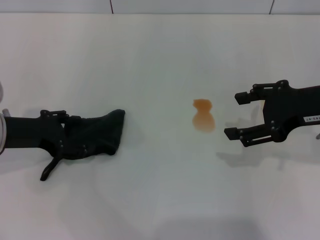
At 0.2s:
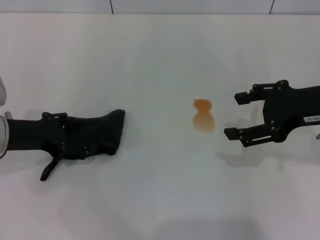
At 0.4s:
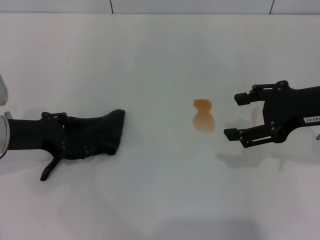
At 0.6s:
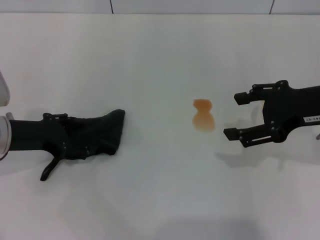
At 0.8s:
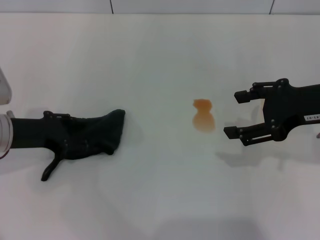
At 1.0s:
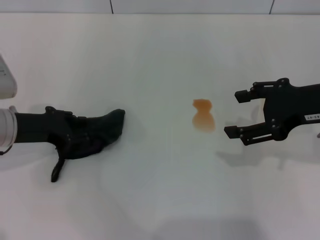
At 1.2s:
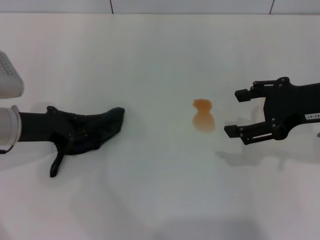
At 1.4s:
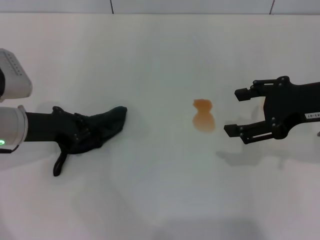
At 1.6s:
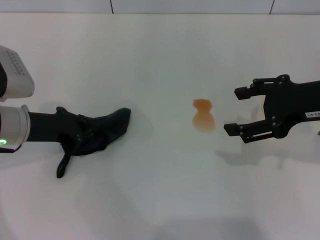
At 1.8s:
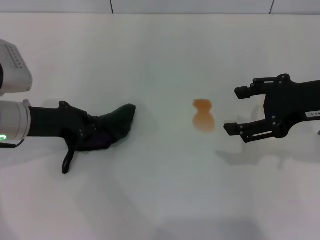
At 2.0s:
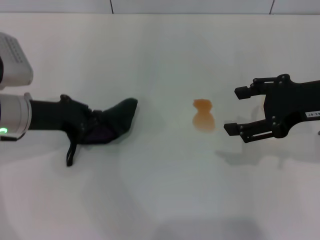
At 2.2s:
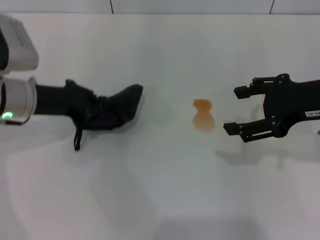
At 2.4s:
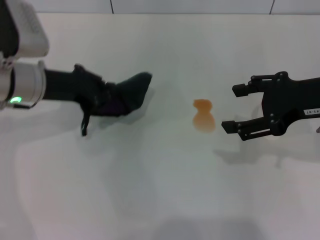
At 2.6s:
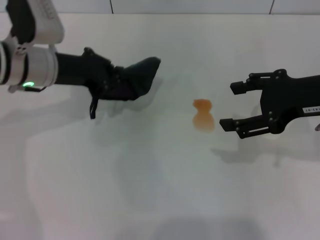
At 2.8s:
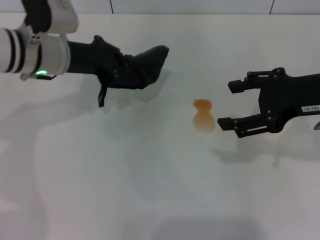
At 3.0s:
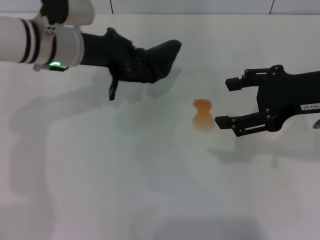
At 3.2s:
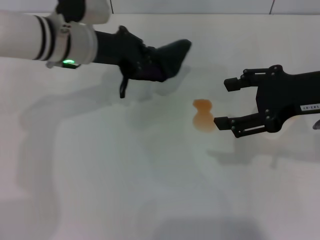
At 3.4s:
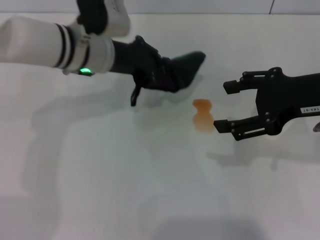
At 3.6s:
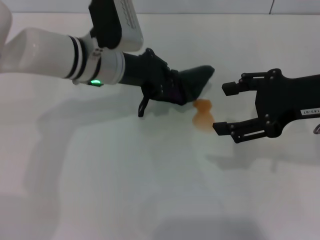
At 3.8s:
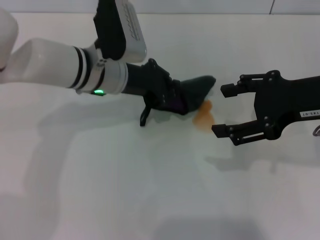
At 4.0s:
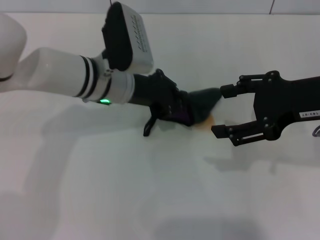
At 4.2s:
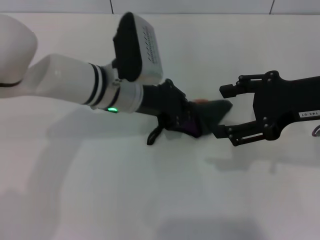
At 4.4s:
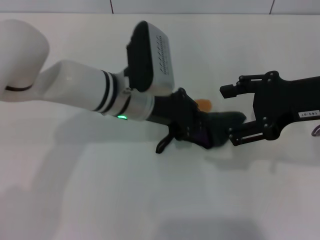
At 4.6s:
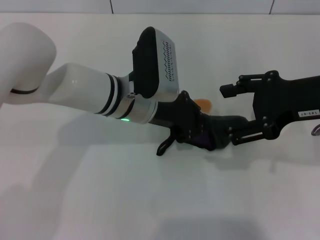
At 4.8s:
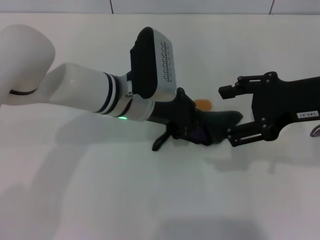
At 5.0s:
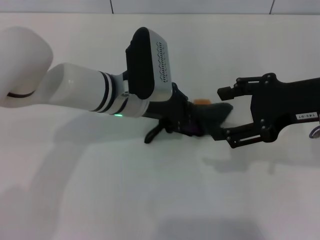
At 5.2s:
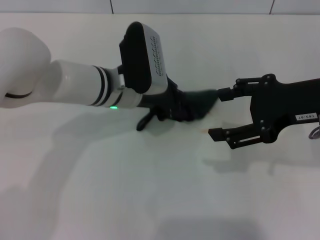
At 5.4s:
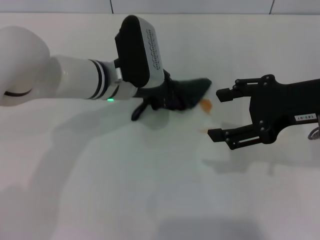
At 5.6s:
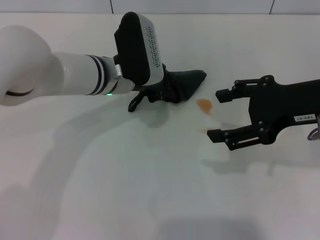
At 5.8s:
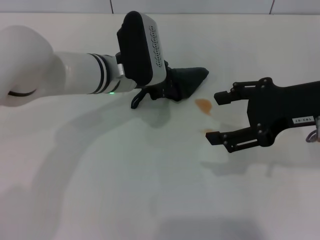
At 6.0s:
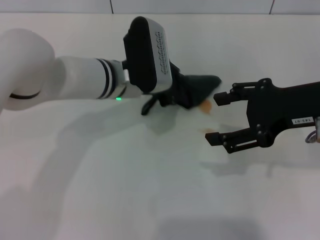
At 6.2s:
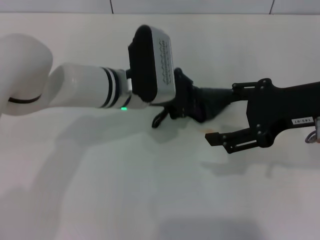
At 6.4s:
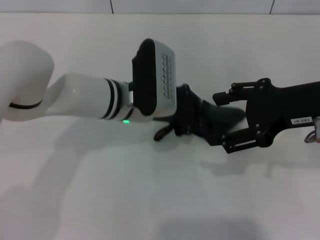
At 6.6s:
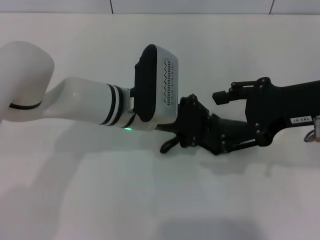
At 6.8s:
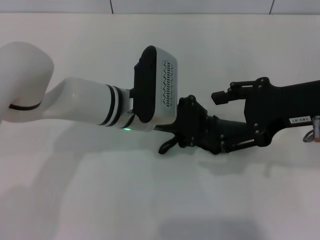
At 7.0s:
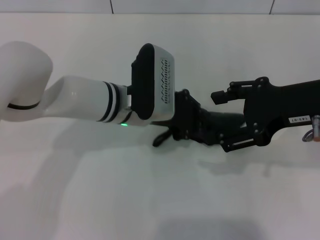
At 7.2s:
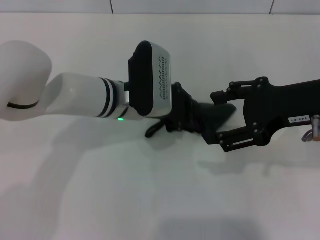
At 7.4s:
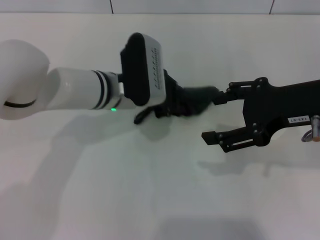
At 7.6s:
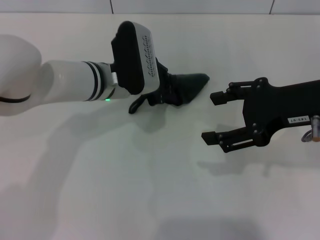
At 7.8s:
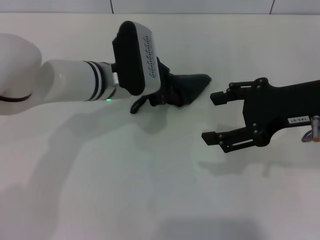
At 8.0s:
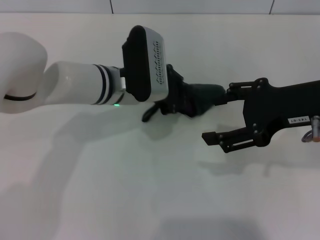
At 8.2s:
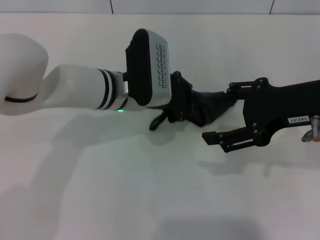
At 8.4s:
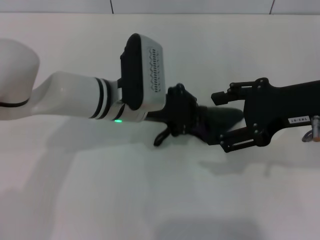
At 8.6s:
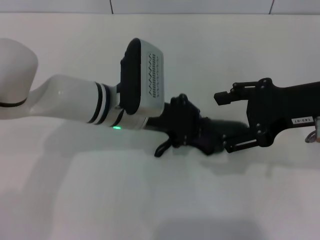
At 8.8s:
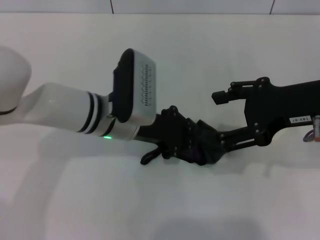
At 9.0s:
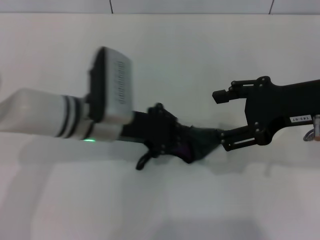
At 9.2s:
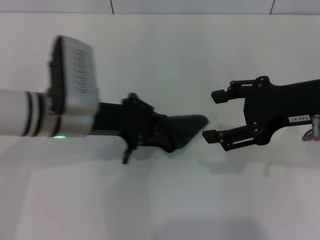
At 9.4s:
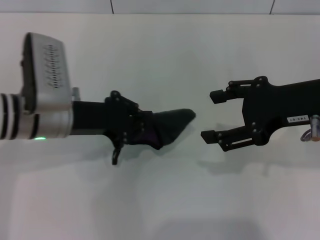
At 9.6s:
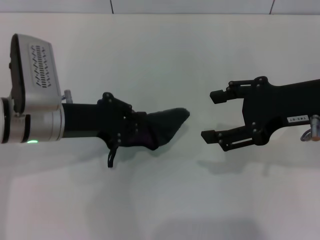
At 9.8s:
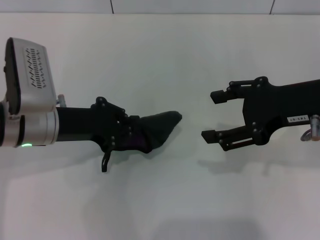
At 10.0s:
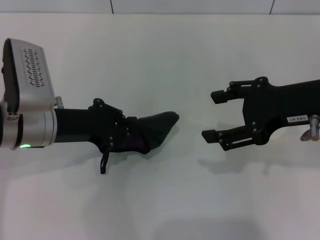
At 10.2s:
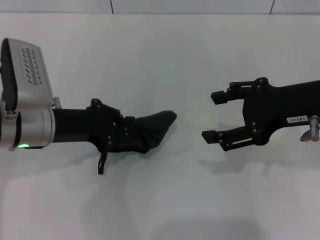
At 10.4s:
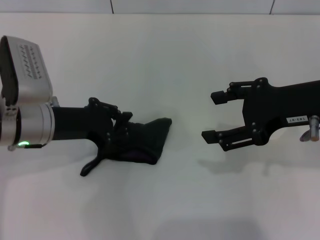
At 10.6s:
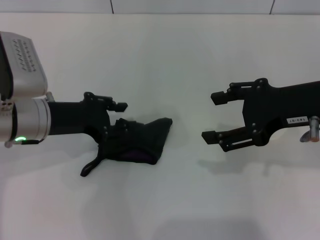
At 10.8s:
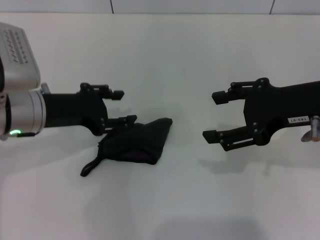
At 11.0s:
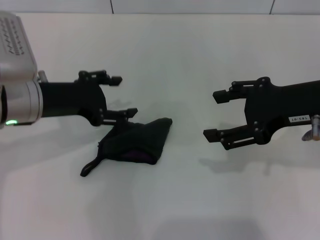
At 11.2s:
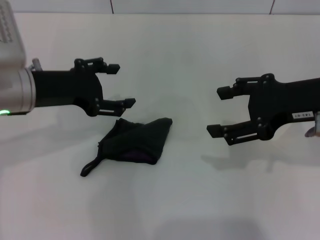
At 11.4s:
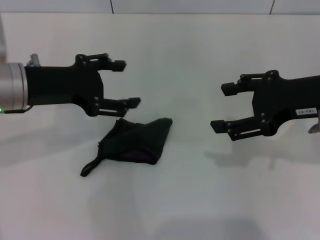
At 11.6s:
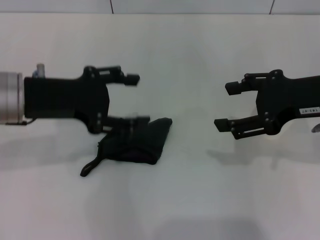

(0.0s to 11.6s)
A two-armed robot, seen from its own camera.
Step, 1.4s - 10.0s: Wipe the stains off the table with the left gripper.
Step, 10.2s - 10.8s: Place the rag on the table with the left gripper.
0.0s - 1.4s: The left gripper closes.
1.4s - 2.8s: The left gripper moves to the right, forward and upward, about 10 cm.
2.8s - 4.4s: The left gripper heads to the right, covering about 10 cm.
7.2s - 8.8s: The grippers make only small movements.
8.8s - 10.2s: The left gripper goes about 10 cm to the left.
10.2s - 11.6s: The left gripper heads upward, covering approximately 5 cm, and opens up.

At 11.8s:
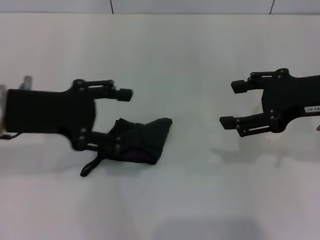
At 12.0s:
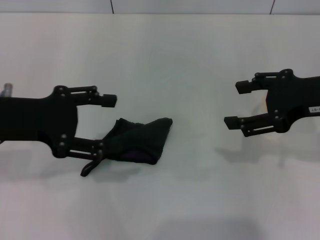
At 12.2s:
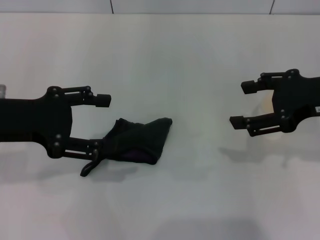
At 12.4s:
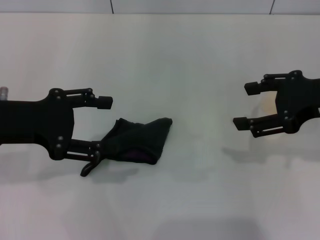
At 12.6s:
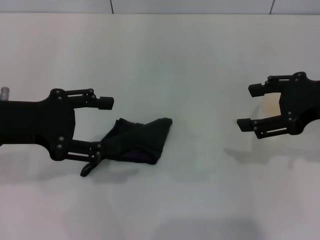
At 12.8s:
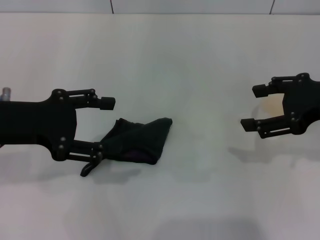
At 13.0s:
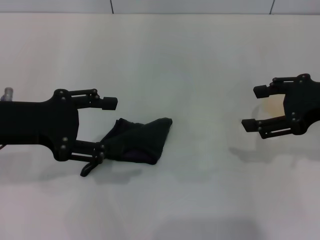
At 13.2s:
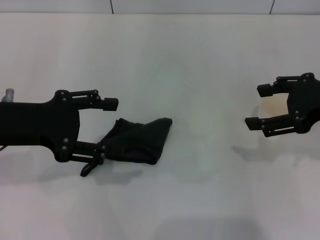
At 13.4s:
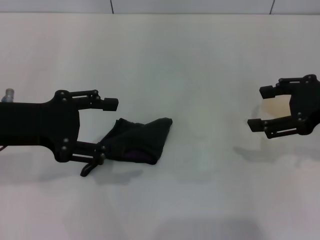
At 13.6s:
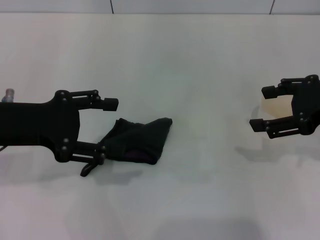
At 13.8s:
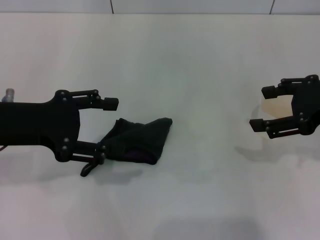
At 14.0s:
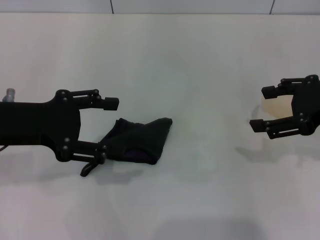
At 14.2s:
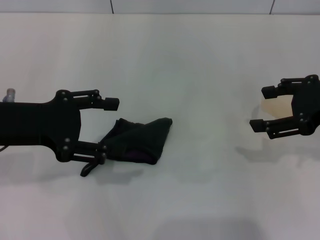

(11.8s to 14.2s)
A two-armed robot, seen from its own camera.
11.8s - 13.0s: The grippers stay close to where they were, moving slightly.
13.0s - 14.2s: Both grippers stay about where they are.

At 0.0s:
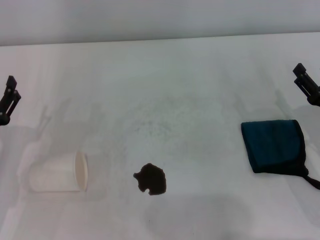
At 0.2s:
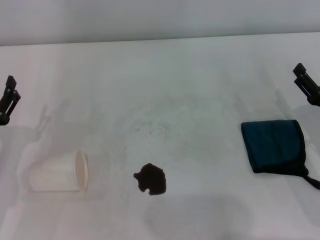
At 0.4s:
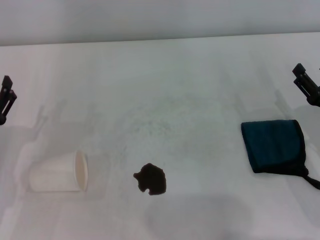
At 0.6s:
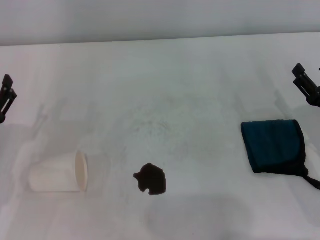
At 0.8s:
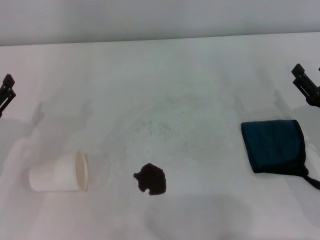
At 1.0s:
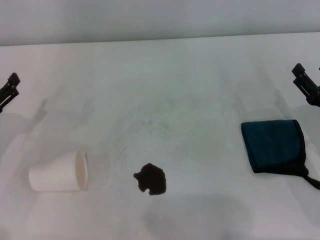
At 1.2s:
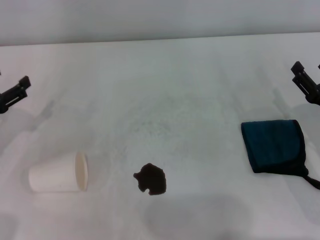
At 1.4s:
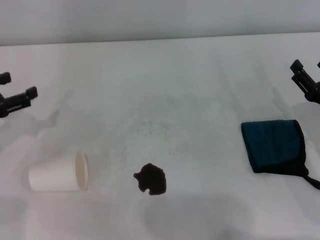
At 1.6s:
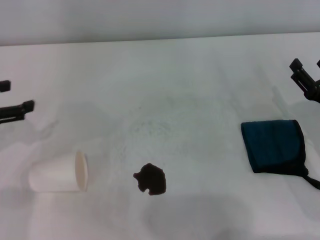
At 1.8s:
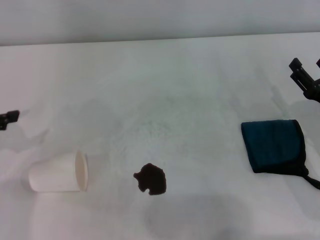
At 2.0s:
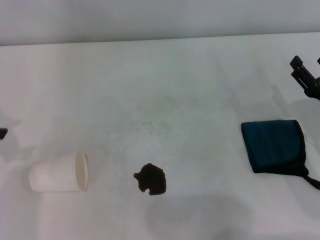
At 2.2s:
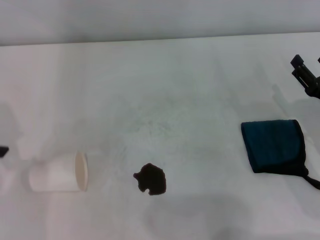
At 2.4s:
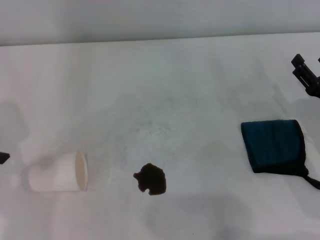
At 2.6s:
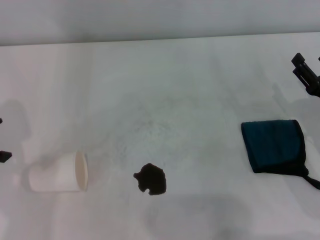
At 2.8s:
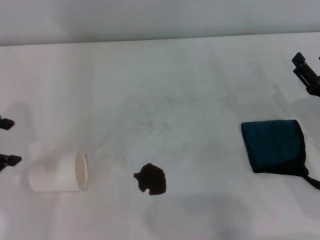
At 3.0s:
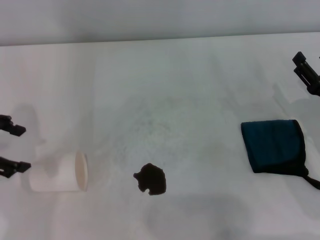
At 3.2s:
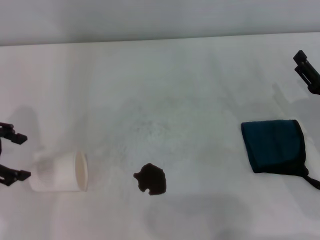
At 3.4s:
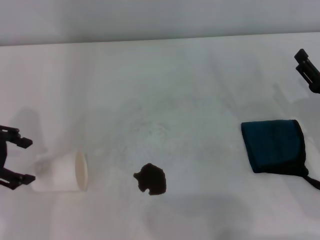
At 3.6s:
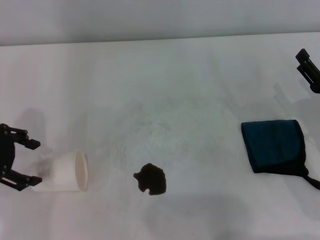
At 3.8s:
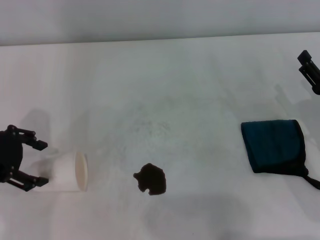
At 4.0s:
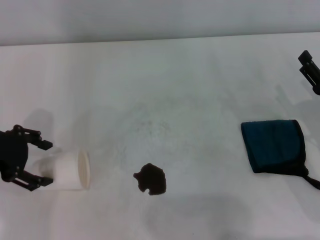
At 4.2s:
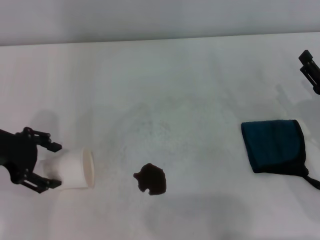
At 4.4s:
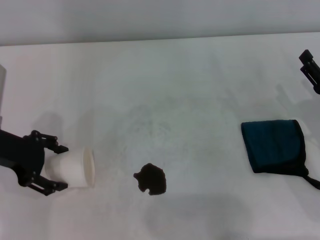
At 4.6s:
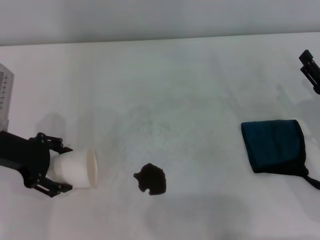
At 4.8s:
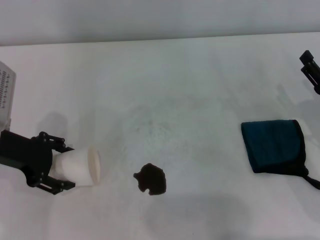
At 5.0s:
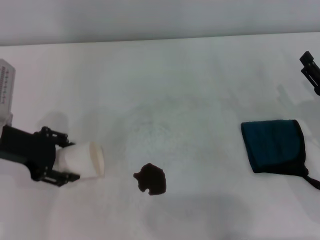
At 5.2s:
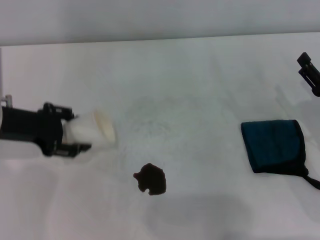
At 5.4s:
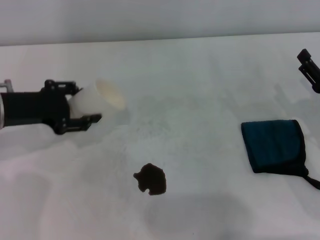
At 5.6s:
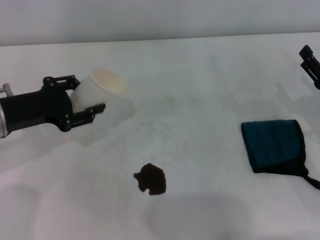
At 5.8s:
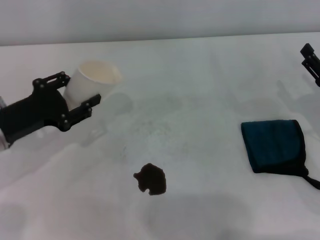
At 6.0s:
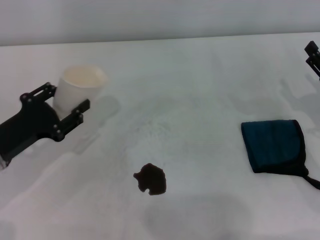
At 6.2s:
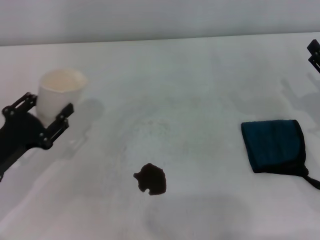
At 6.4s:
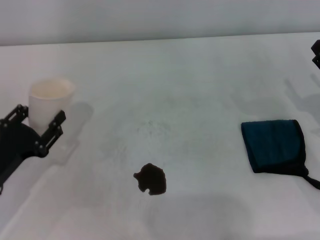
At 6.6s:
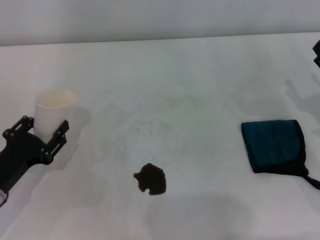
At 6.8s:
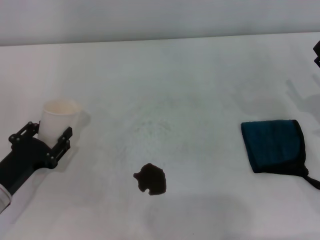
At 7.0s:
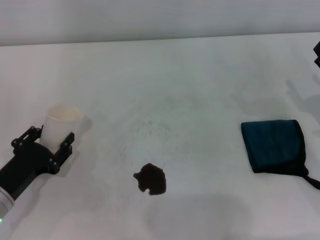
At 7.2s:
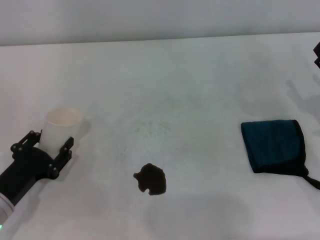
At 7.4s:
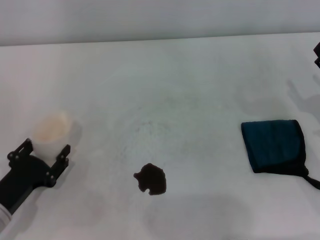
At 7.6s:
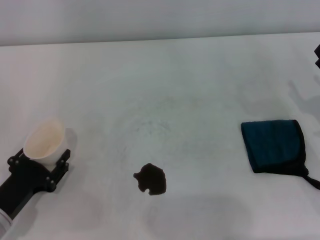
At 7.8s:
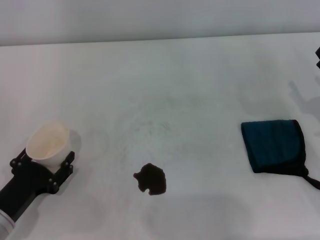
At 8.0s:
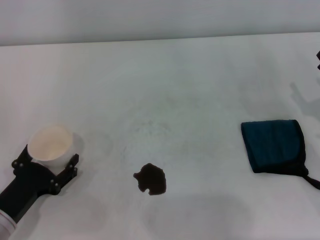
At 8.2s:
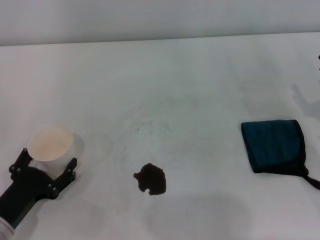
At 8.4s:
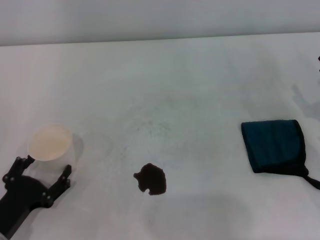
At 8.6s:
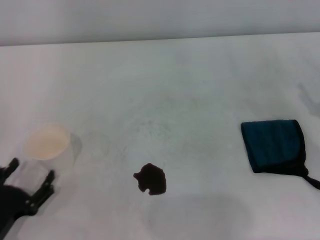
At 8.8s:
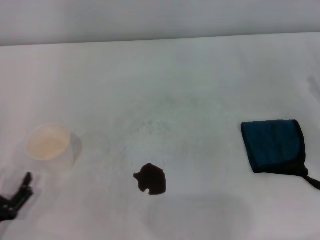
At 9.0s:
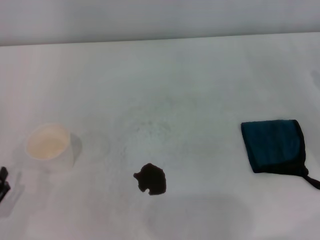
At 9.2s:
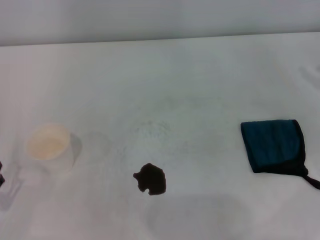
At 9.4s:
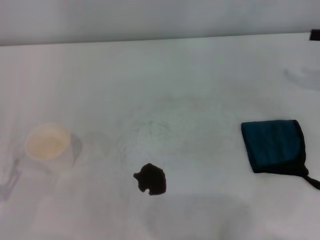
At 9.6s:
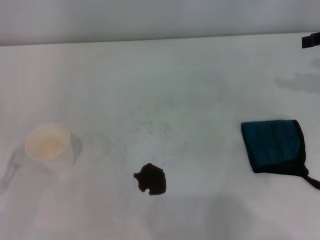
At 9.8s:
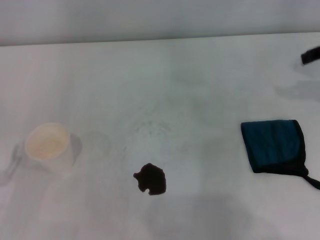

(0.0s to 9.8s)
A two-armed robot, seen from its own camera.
Step, 0.0s - 4.6s: Grasp the paper cup with the left gripper.
Step, 5.0s - 8.0s: Stand the paper cup upright with the left gripper.
0.0s - 1.4s: The left gripper shifts approximately 10 cm forward, upward and to the left.
1.4s - 2.8s: The left gripper moves upward, some 10 cm.
2.8s - 4.2s: The left gripper travels downward by about 5 cm.
4.2s - 5.6s: The left gripper closes its fingers.
5.6s - 7.0s: The left gripper heads backward and downward, covering about 15 cm.
7.0s - 8.4s: The left gripper moves backward, about 5 cm, and opens.
8.4s - 9.8s: The right gripper heads upward and forward, covering about 20 cm, while the left gripper travels to the left by some 5 cm.
